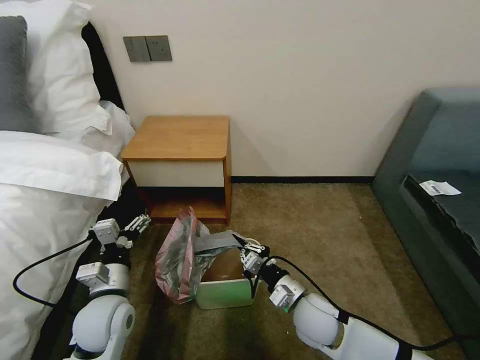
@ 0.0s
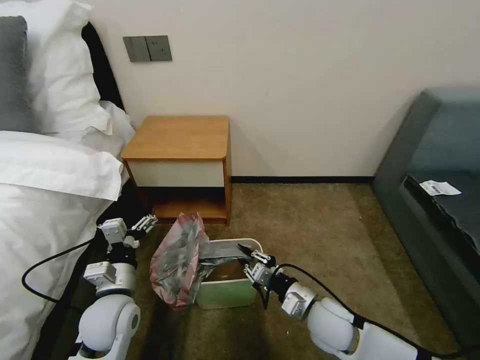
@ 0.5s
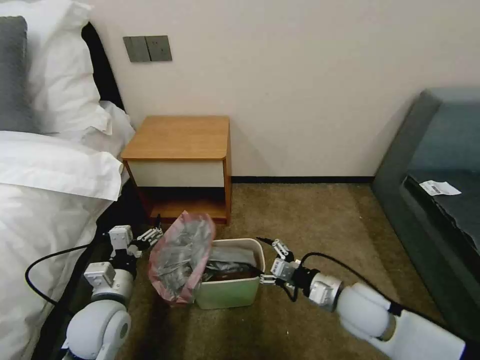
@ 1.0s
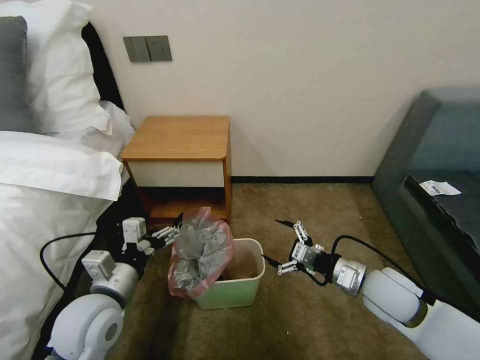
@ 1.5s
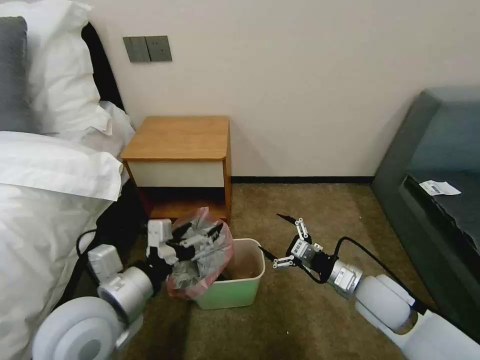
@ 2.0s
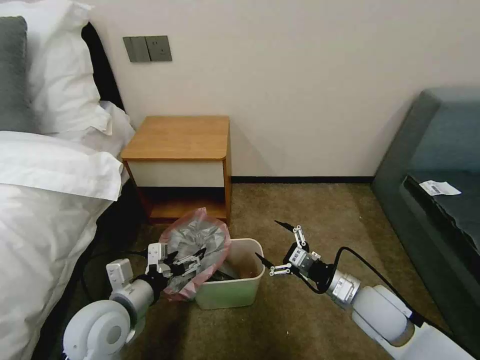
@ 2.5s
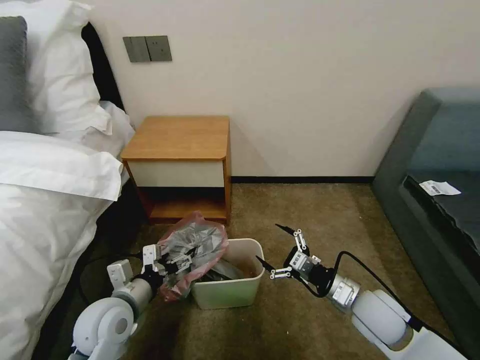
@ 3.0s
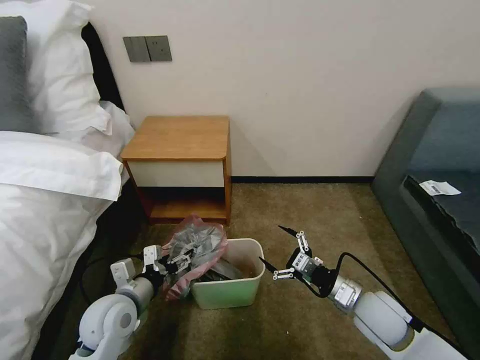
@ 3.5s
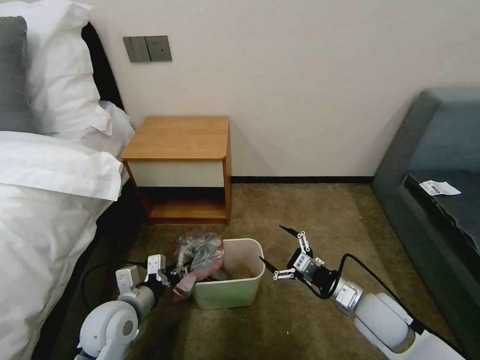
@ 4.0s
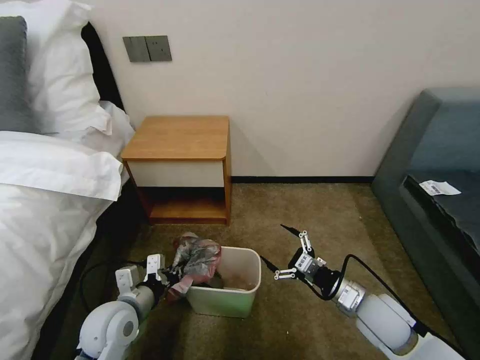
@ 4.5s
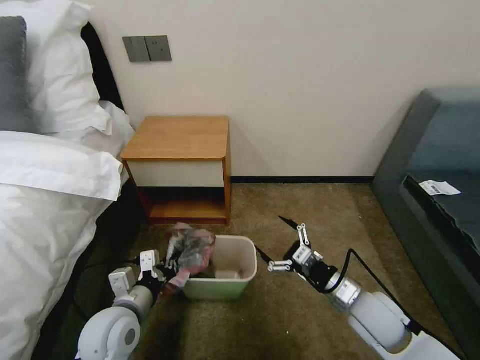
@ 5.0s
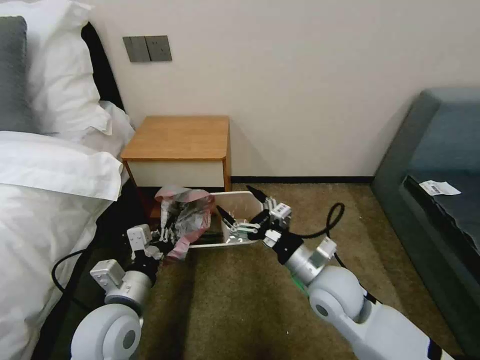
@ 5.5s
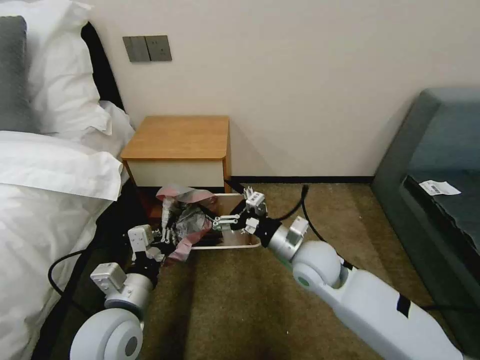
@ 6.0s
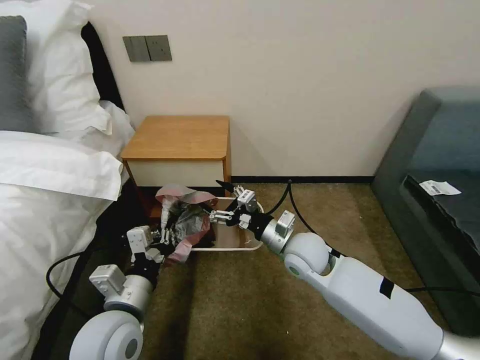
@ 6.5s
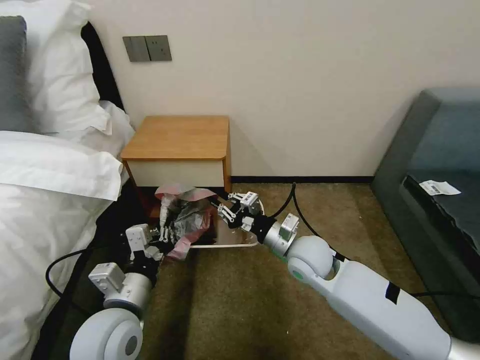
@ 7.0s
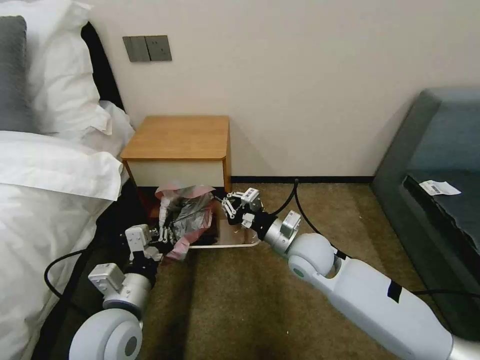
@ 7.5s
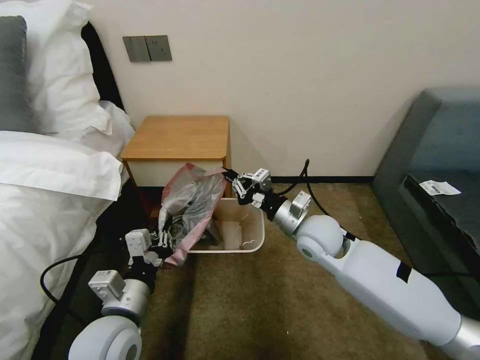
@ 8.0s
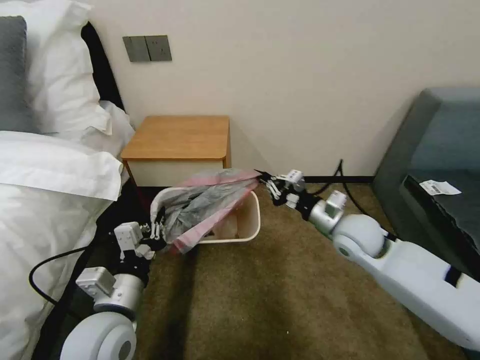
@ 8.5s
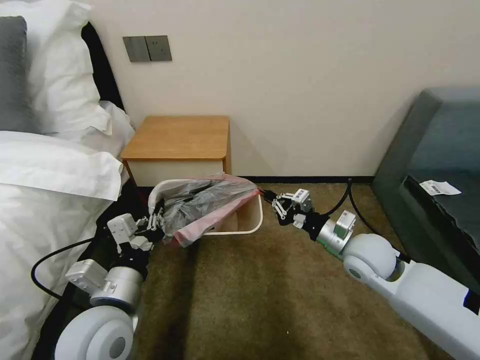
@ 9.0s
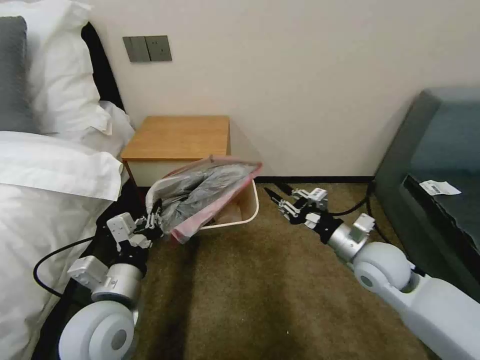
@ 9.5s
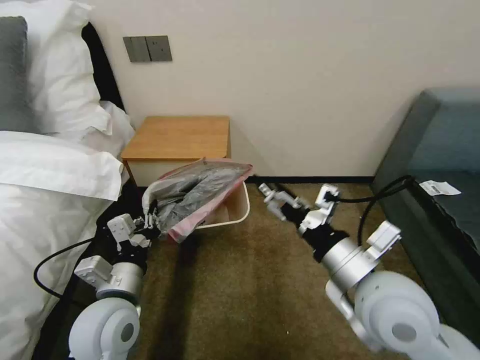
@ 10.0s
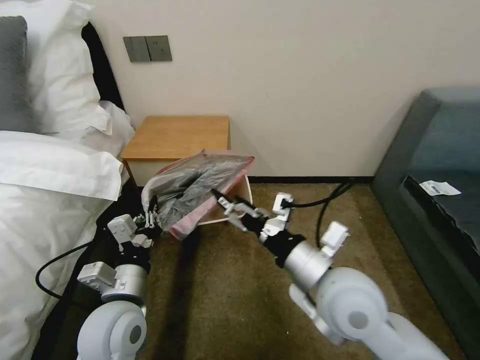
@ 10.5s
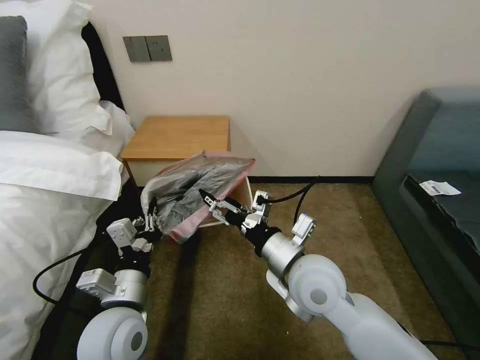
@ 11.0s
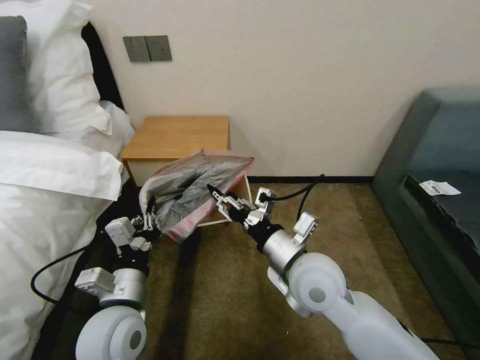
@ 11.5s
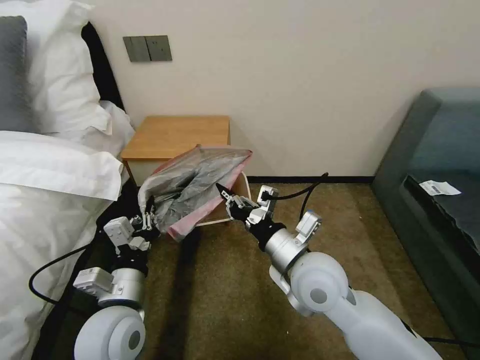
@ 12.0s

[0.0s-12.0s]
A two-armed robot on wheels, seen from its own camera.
Task of the whole recording: Pick up the garbage bag from the table and place it over the trash can.
0.0s to 2.0s: The left gripper heads upward, covering about 15 cm, while the right gripper shifts some 15 cm to the right and upward, and opens its fingers.
2.0s to 4.0s: The left gripper heads downward, covering approximately 15 cm, and closes.
4.0s to 6.0s: The right gripper travels to the left, forward and upward by about 20 cm. The left gripper travels upward by roughly 10 cm, and closes its fingers.
6.0s to 8.0s: The right gripper is displaced forward by some 5 cm, and closes up.
8.0s to 10.0s: The right gripper is displaced backward and upward by some 20 cm, and opens up.
10.0s to 12.0s: The right gripper is displaced to the left and forward by about 10 cm, and closes.

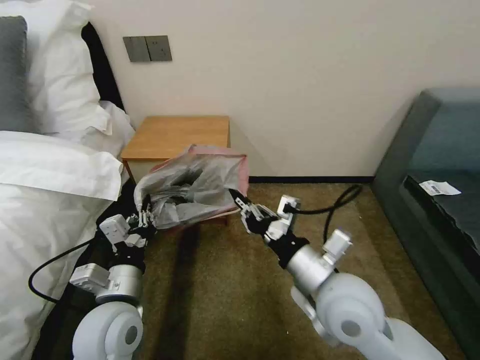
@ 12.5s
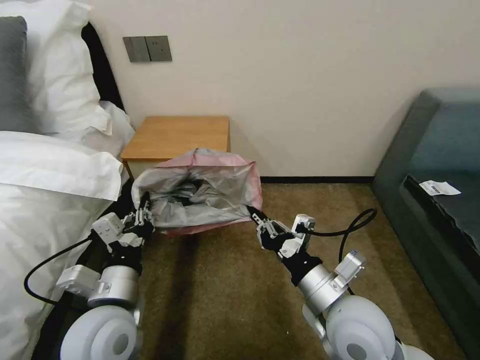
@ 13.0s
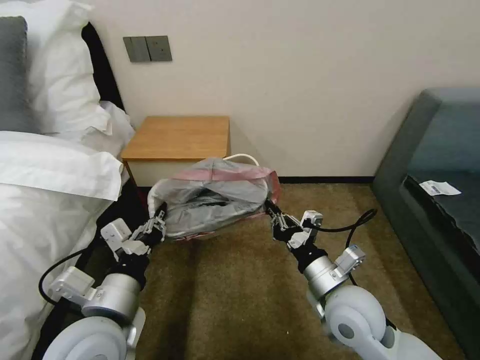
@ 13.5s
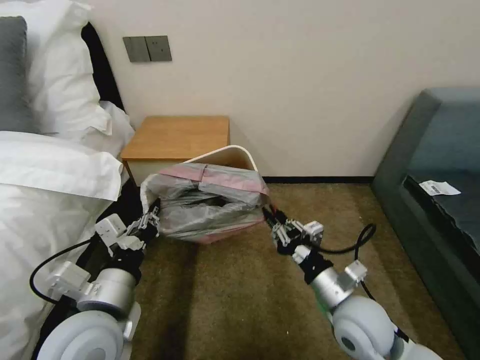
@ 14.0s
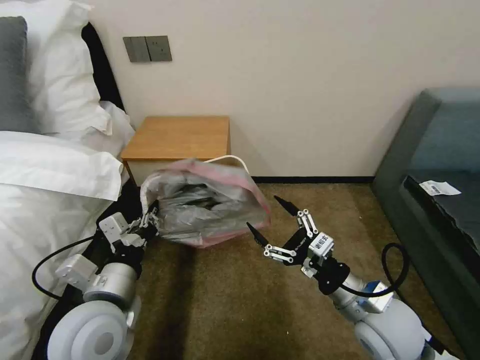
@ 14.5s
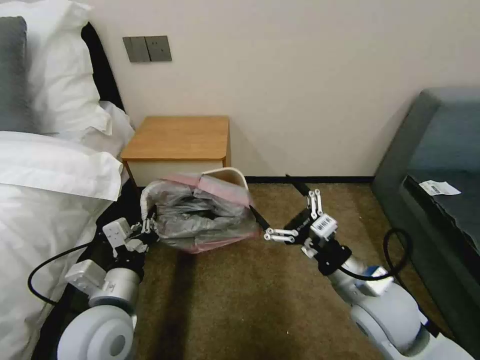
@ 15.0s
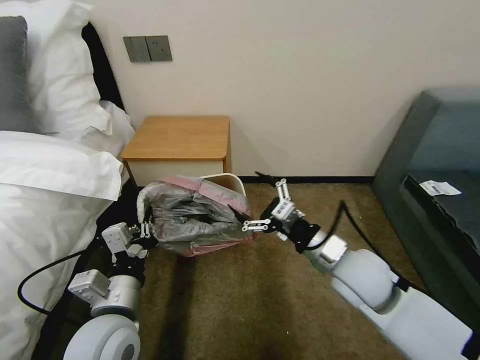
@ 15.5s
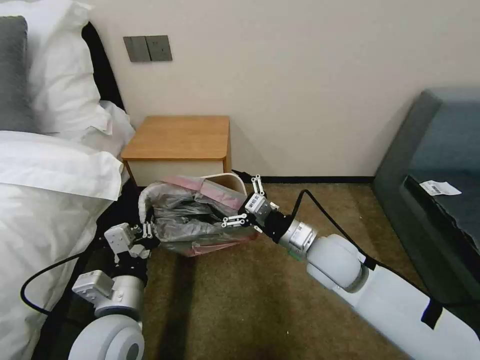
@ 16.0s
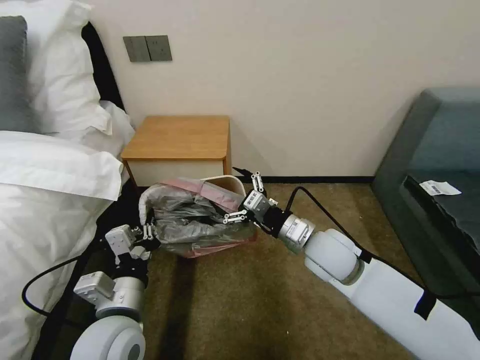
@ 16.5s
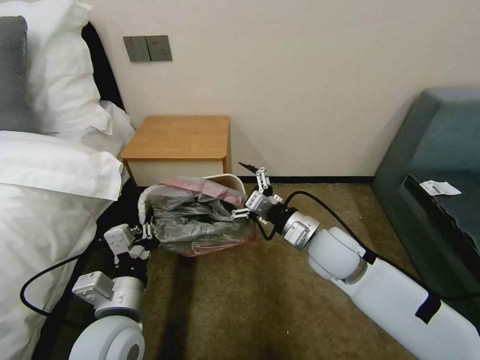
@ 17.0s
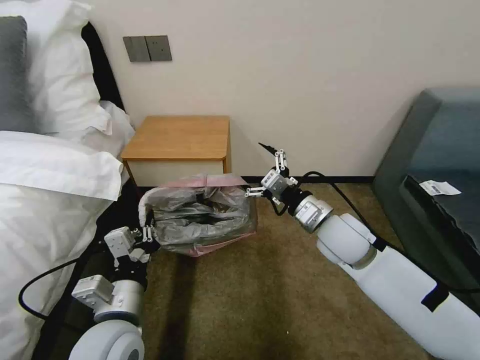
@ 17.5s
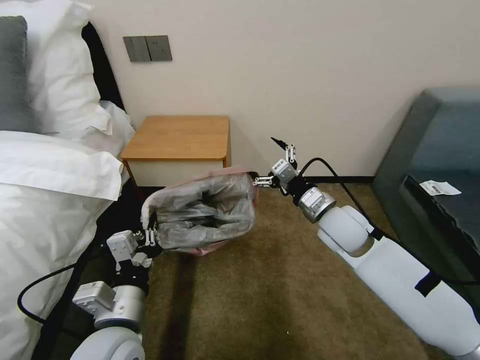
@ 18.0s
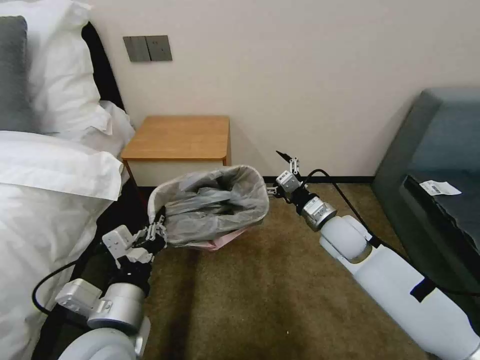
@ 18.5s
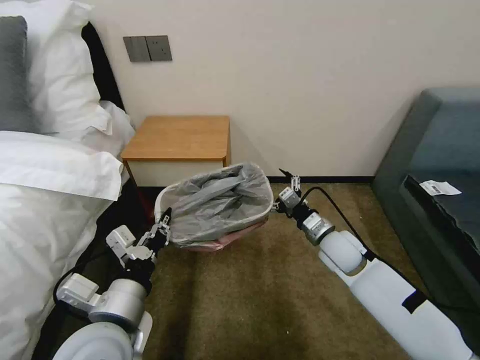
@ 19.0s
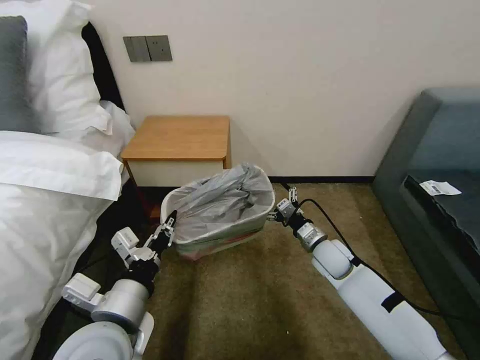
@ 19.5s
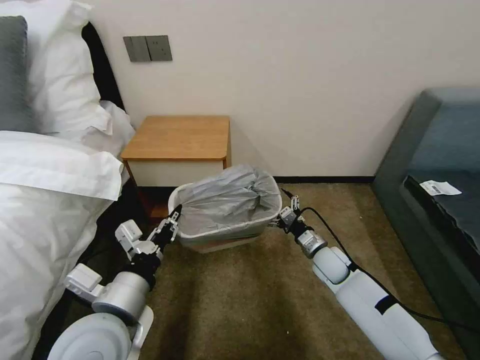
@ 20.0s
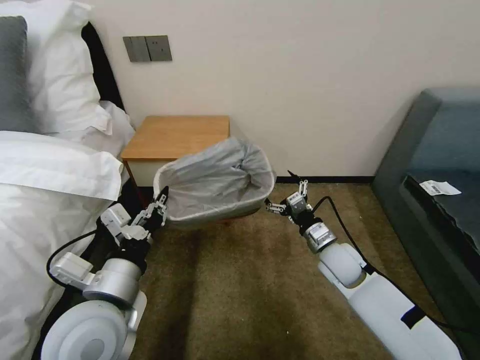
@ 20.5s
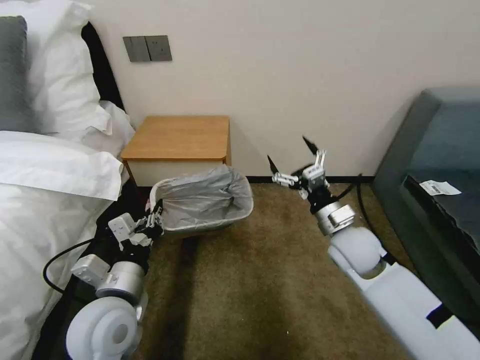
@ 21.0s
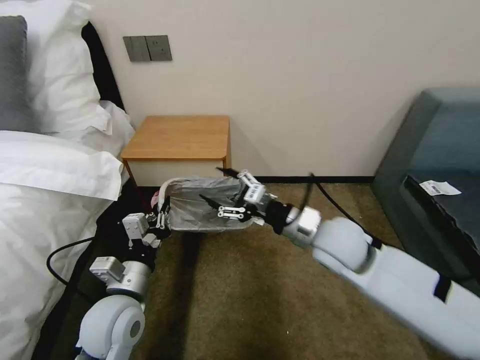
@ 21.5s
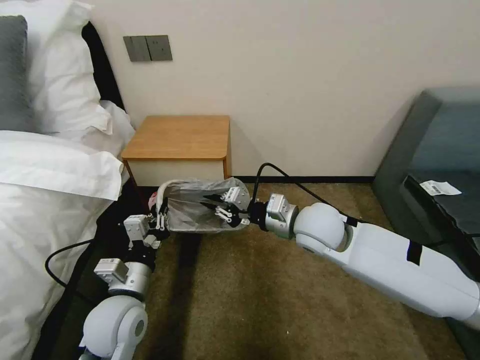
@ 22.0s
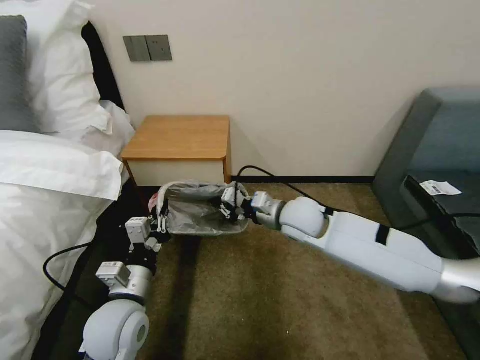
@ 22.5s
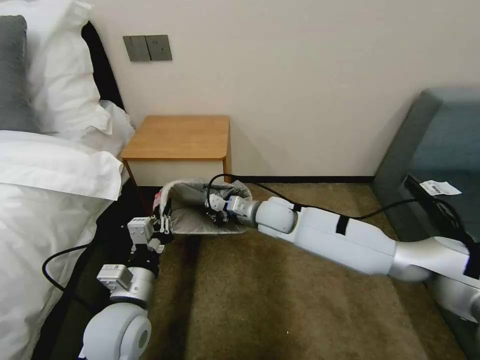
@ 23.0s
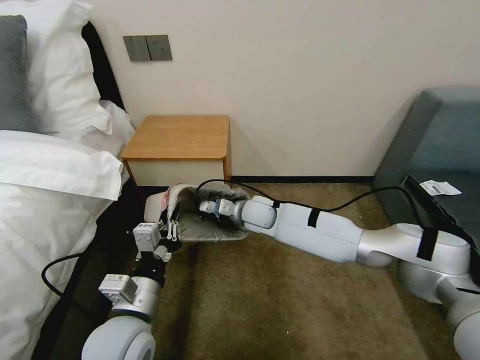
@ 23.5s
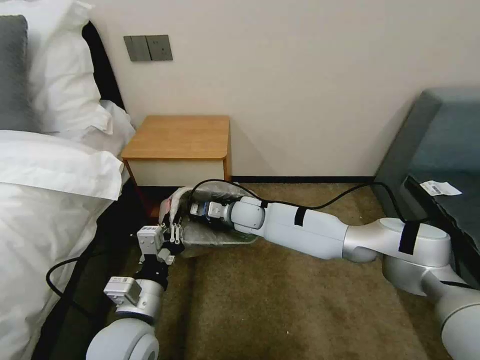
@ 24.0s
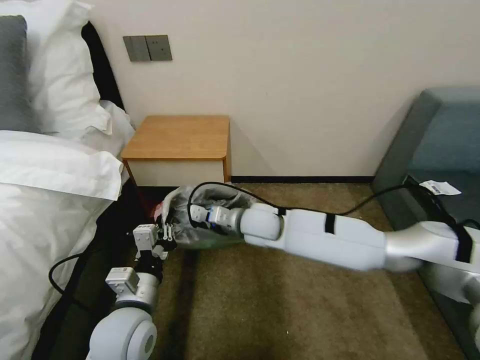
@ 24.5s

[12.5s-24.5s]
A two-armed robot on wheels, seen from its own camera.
Task of the whole recording: Pick up the garbage bag from the table and place it over the trash can.
12.5s to 14.5s: The right gripper goes roughly 10 cm to the right and downward, and opens its fingers.
14.5s to 16.5s: The right gripper shifts roughly 15 cm forward and to the left.
16.5s to 18.5s: The right gripper is displaced forward and to the right by roughly 10 cm.
18.5s to 20.5s: The right gripper travels downward by about 10 cm.
20.5s to 22.5s: The left gripper moves downward, about 10 cm. Meanwhile the right gripper travels upward, to the left and forward by about 15 cm, and closes.
22.5s to 24.5s: The right gripper goes roughly 10 cm to the left.

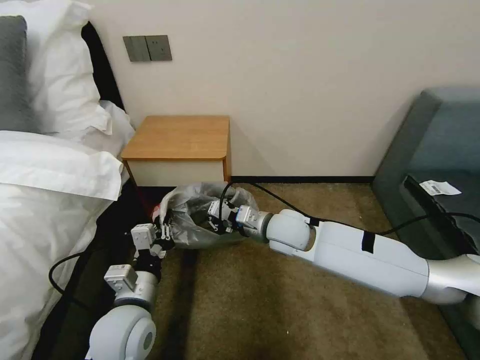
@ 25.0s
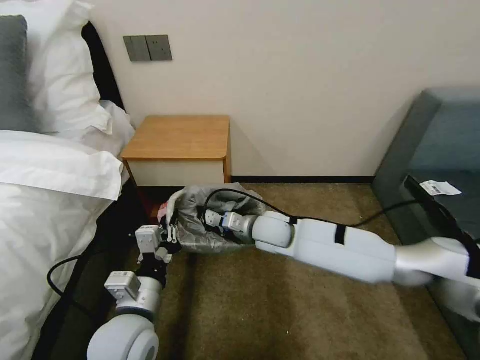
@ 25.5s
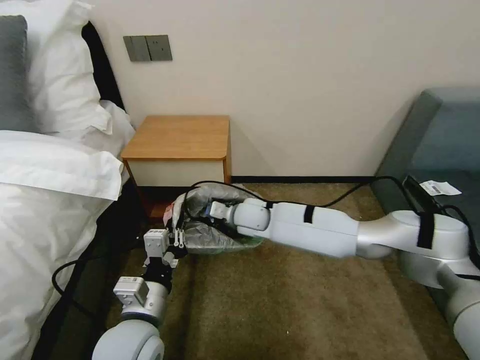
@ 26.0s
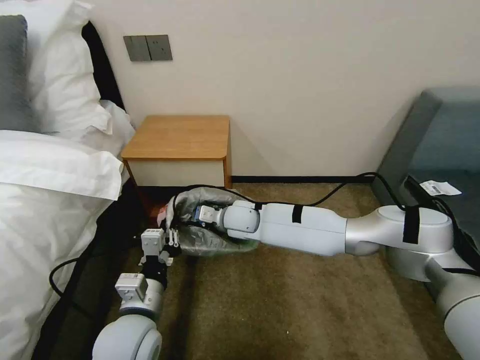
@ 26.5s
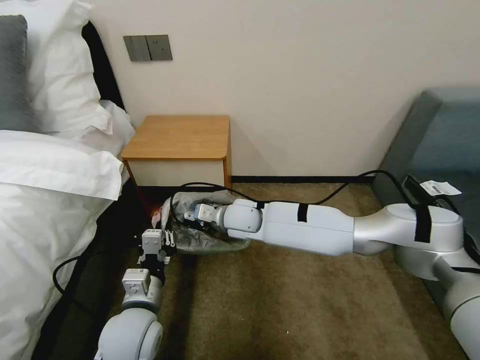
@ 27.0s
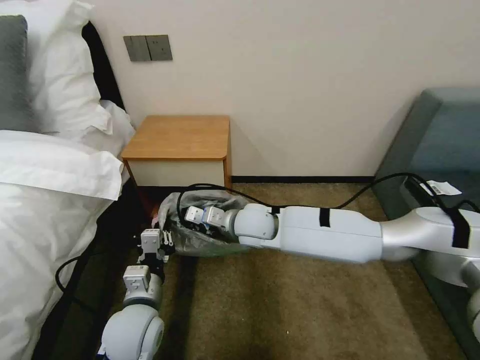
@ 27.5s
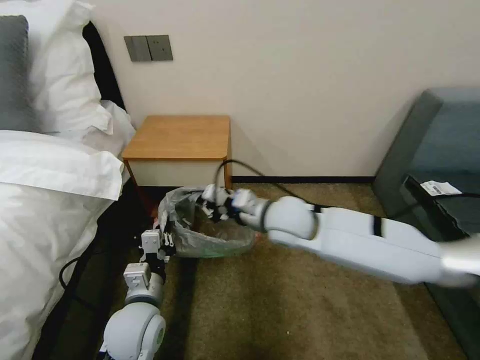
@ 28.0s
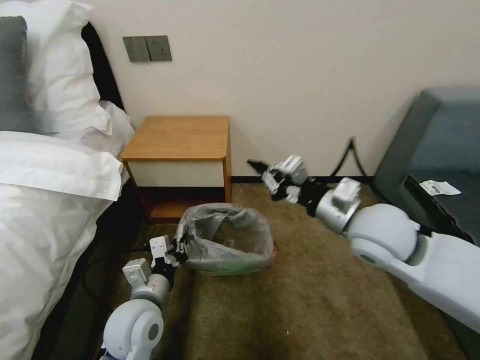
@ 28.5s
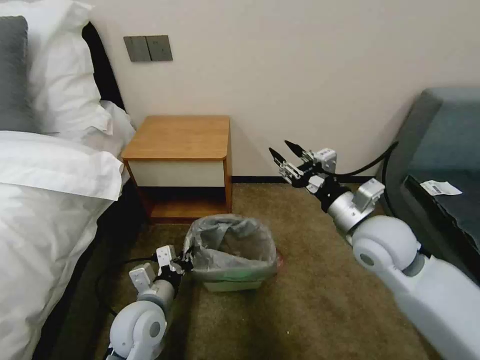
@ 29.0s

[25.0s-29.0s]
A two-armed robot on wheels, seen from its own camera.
Task of the whole recording: Pick up the garbage bag from the table and place it over the trash can.
25.0s to 27.0s: The right gripper goes approximately 10 cm to the left and forward.
27.0s to 29.0s: The right gripper heads to the right and backward, covering roughly 30 cm, and opens its fingers.
